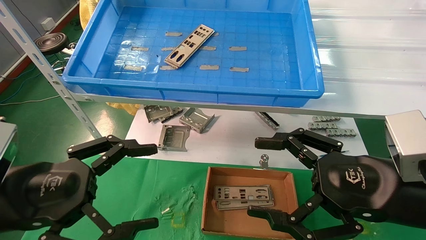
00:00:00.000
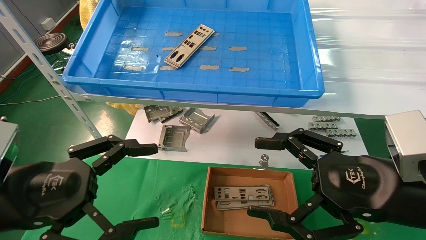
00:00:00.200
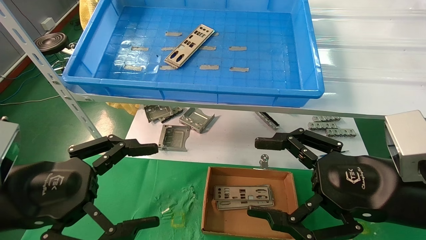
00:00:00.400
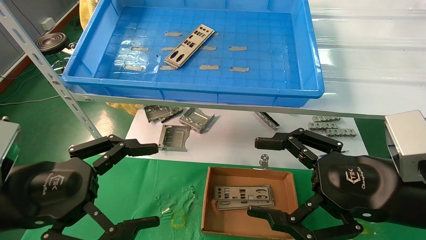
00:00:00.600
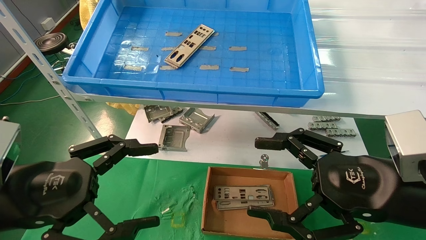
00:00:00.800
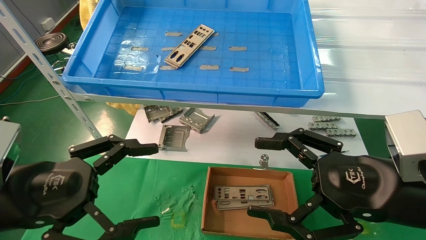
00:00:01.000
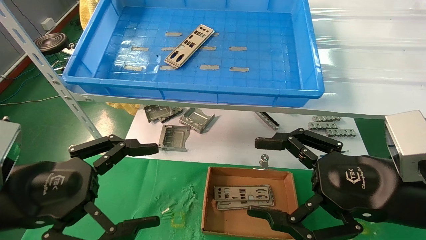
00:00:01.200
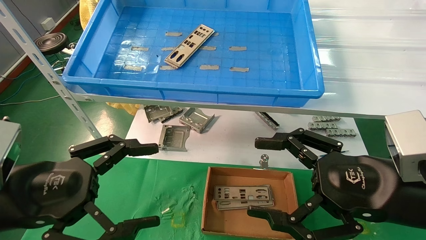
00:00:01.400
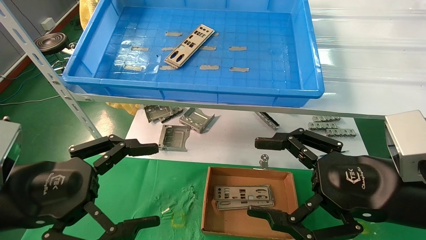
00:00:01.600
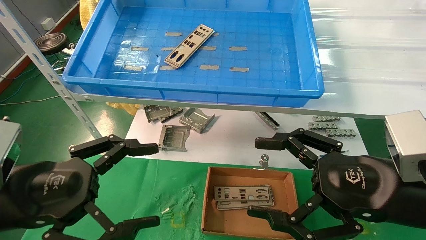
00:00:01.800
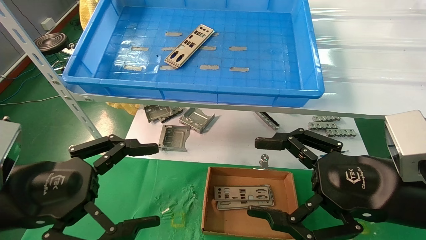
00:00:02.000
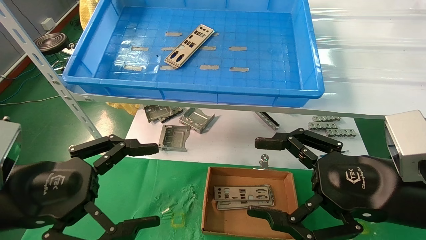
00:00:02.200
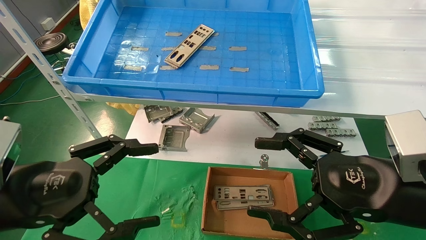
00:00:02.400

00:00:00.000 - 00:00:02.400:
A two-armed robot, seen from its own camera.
Task of the whole recording: pick up the parts on the tray and put them in the cardboard box.
00:00:00.000 - 00:00:02.400: Both grippers stay put.
